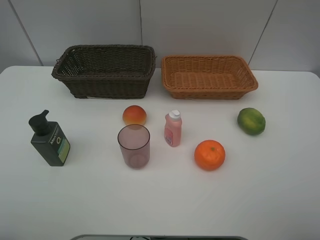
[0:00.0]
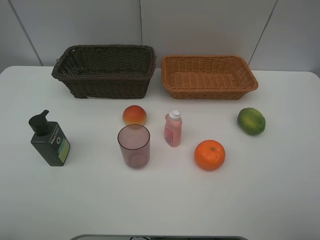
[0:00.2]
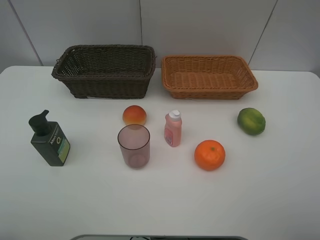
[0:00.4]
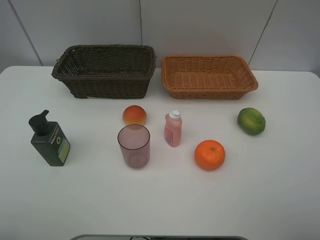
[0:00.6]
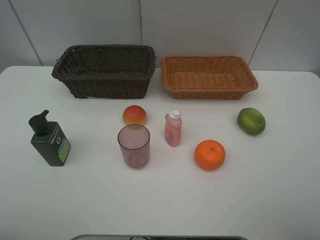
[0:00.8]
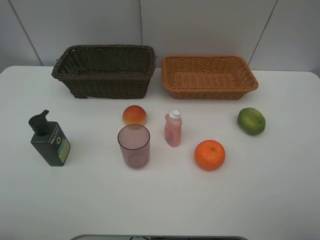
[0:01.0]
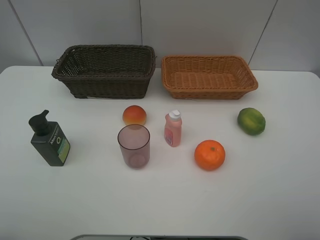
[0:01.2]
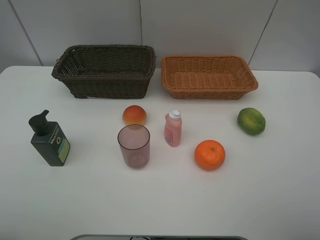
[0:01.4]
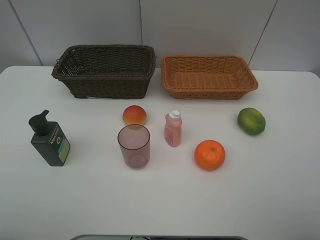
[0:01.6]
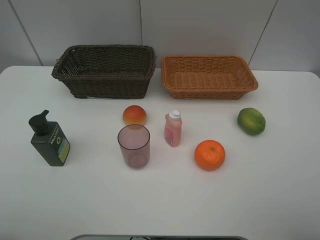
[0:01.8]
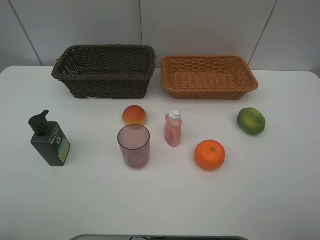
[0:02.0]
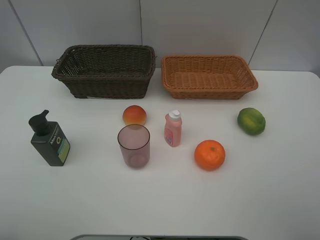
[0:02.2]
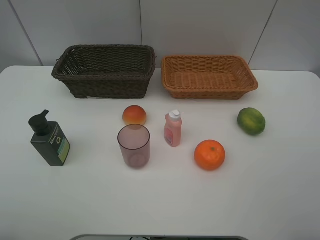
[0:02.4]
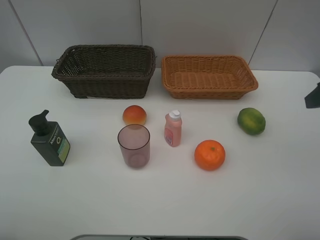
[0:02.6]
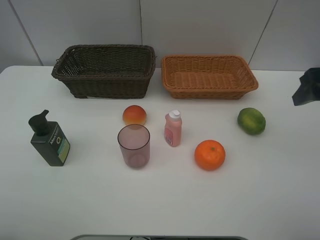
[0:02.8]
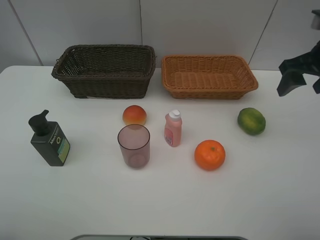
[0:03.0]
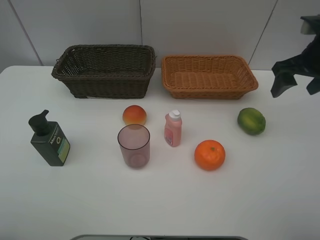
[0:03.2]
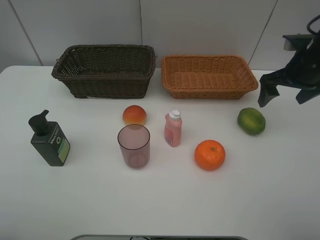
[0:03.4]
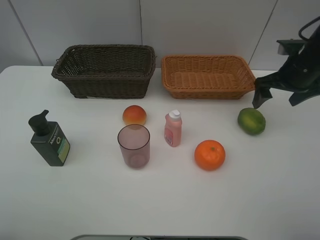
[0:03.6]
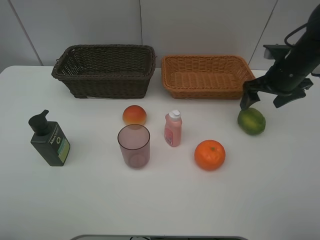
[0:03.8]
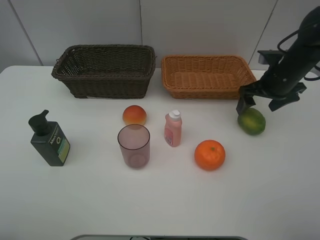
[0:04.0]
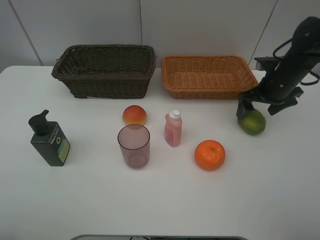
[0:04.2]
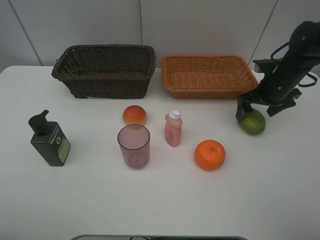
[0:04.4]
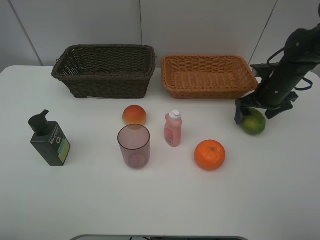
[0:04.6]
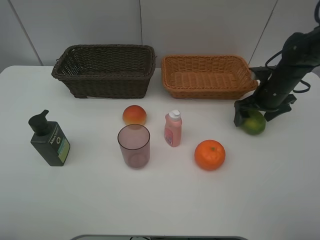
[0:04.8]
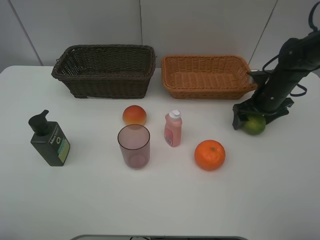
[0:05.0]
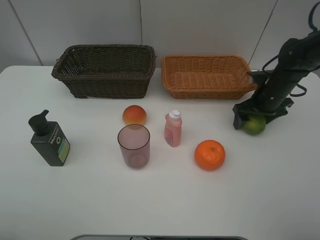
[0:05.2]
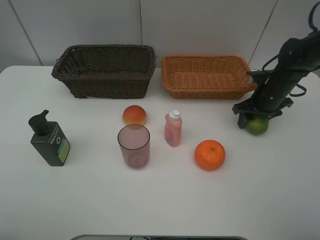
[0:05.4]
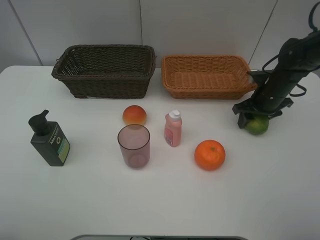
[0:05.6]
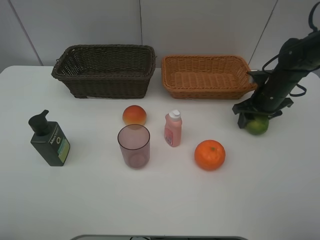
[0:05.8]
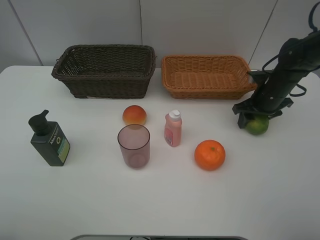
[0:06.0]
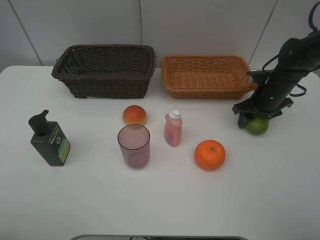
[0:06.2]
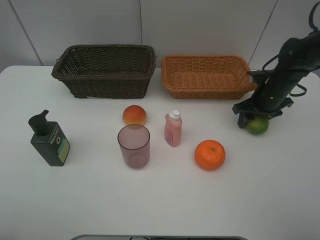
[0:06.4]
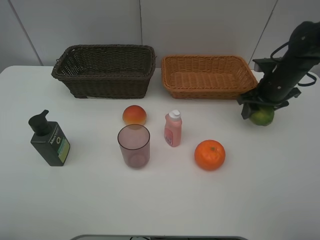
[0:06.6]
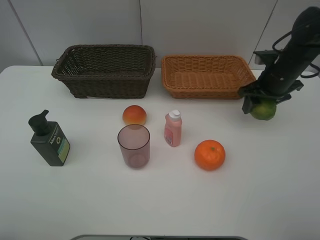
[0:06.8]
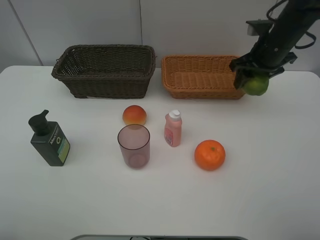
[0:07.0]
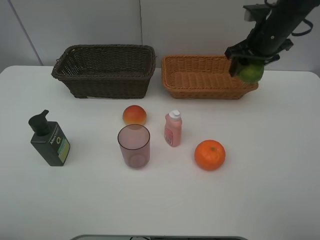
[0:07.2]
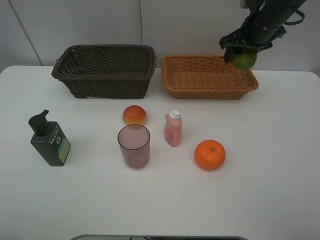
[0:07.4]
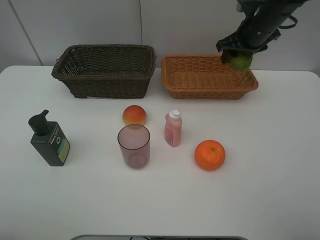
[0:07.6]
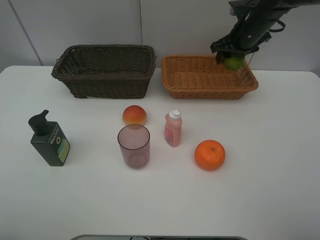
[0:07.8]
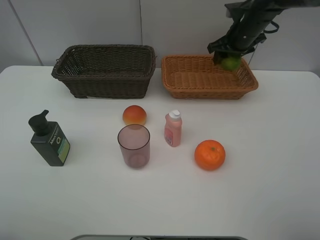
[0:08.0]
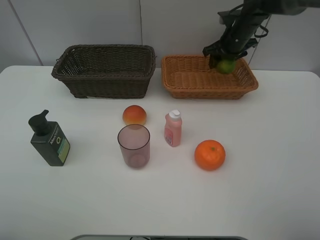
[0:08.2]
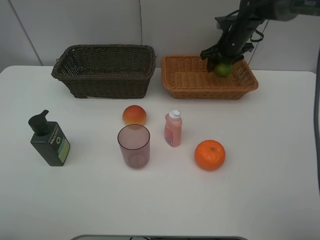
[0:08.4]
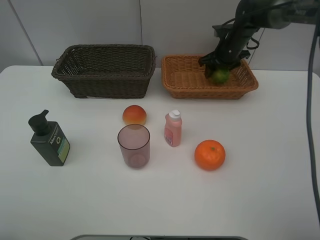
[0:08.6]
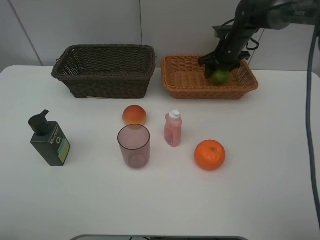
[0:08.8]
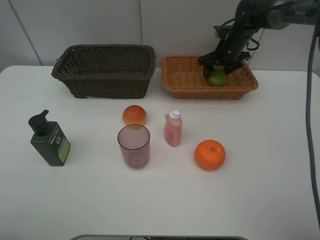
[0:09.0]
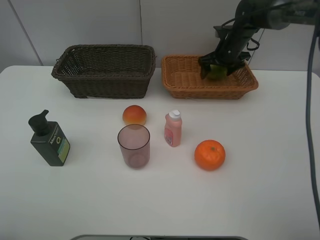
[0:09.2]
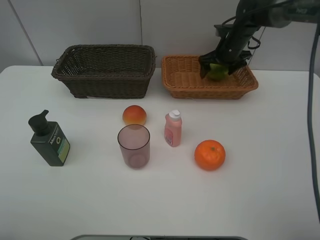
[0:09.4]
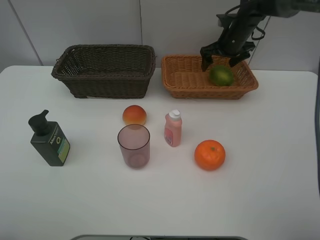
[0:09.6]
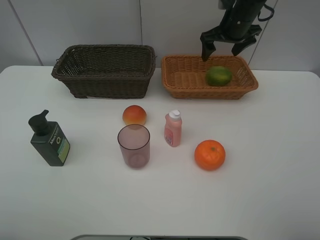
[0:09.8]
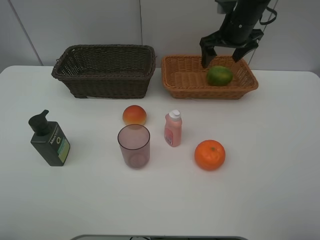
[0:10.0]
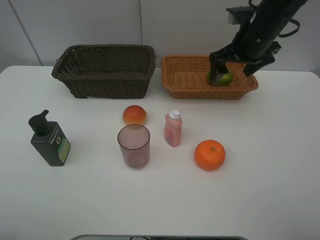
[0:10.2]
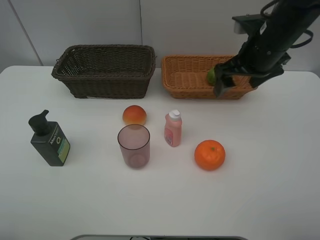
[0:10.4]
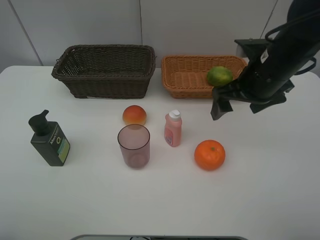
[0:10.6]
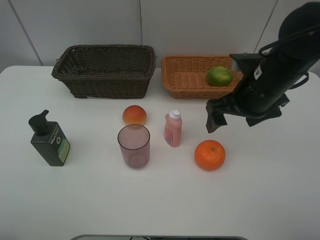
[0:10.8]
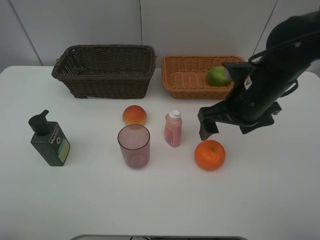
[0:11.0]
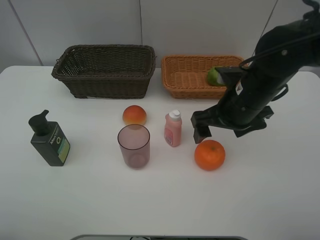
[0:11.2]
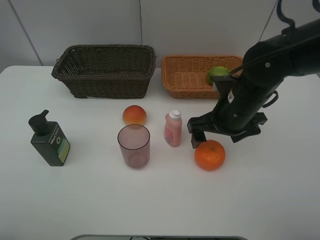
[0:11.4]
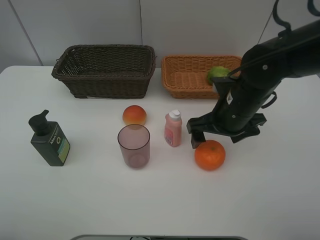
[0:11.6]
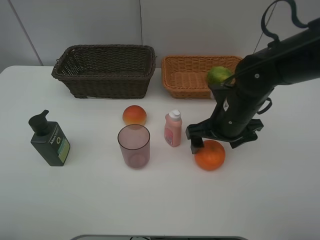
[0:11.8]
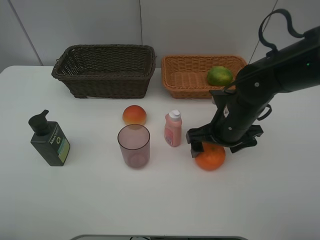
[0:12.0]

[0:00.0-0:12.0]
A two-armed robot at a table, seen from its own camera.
Task of the whole recording: place multiple objects separately in different baskets.
0:00.0 to 0:01.6: The two grippers keep their place.
0:01.6 to 0:03.0: The right gripper shifts roughly 30 cm forward.
0:03.0 to 0:04.4: The right gripper moves downward and forward, about 15 cm.
0:04.4 to 0:06.0: The right gripper closes.
0:06.0 to 0:07.6: The right gripper shifts some 15 cm upward, forward and to the left.
0:07.6 to 0:09.0: The right gripper travels downward and forward by approximately 10 cm.
0:09.0 to 0:10.4: The right gripper shifts approximately 20 cm backward and upward, and opens.
0:10.4 to 0:12.0: The right gripper heads downward and backward, covering approximately 10 cm.

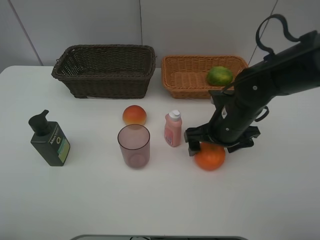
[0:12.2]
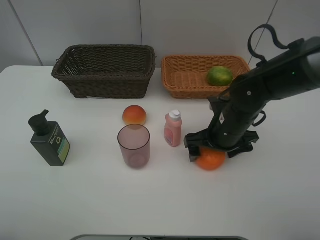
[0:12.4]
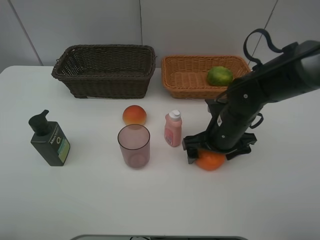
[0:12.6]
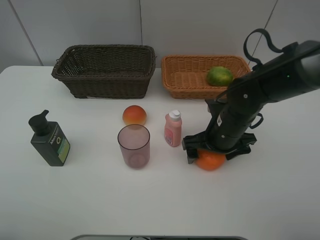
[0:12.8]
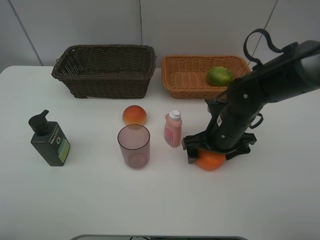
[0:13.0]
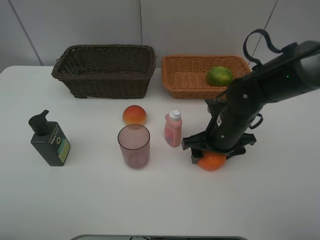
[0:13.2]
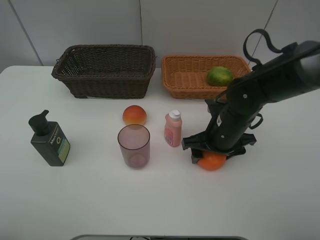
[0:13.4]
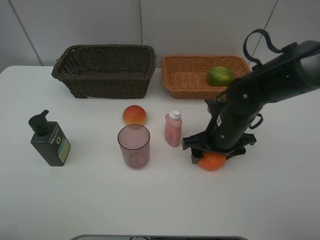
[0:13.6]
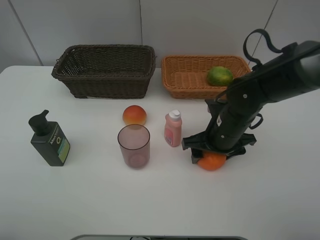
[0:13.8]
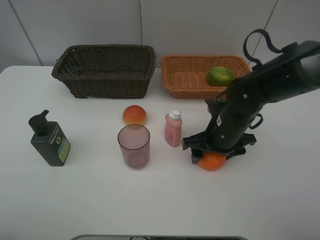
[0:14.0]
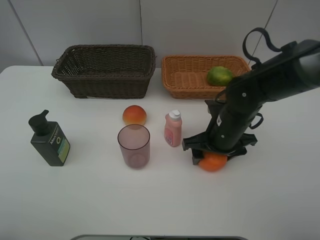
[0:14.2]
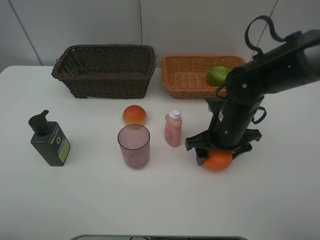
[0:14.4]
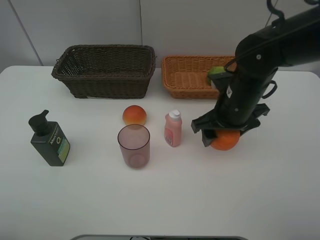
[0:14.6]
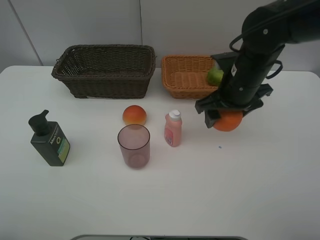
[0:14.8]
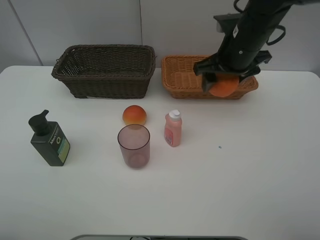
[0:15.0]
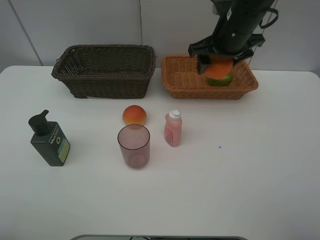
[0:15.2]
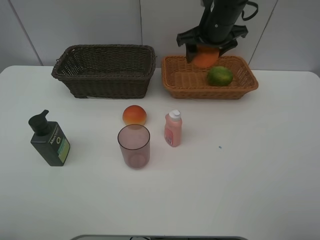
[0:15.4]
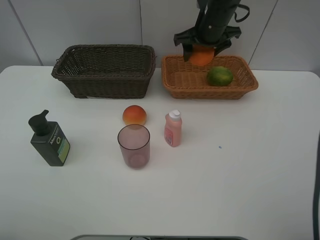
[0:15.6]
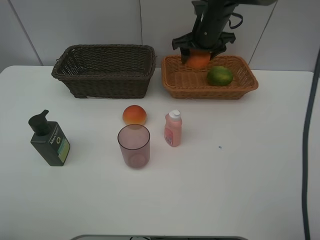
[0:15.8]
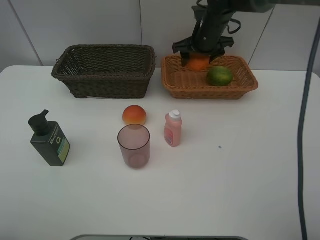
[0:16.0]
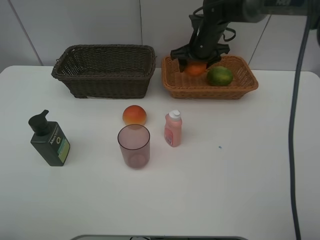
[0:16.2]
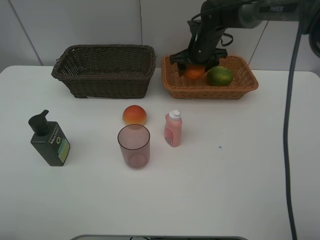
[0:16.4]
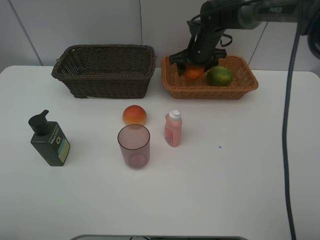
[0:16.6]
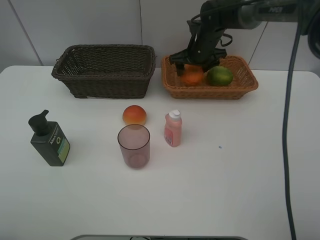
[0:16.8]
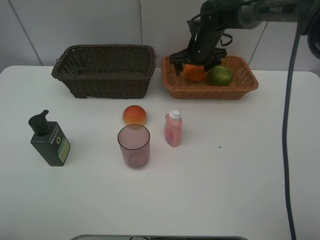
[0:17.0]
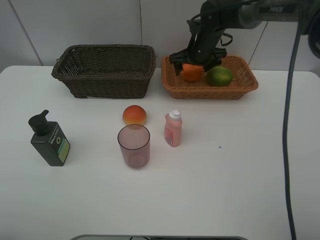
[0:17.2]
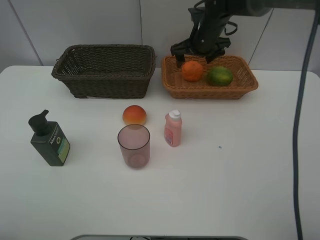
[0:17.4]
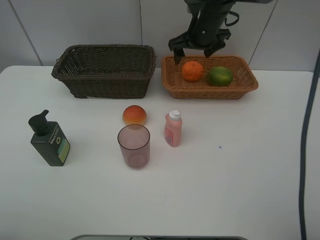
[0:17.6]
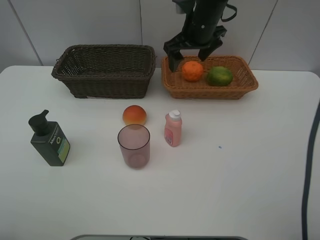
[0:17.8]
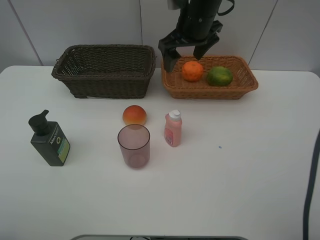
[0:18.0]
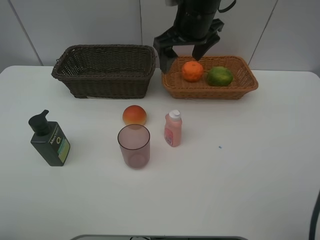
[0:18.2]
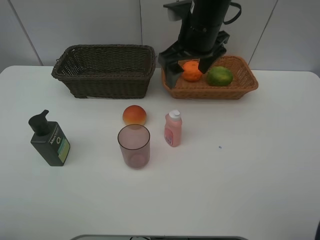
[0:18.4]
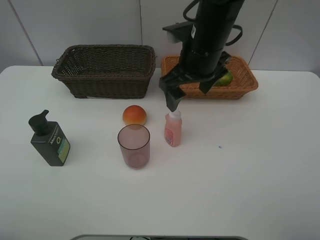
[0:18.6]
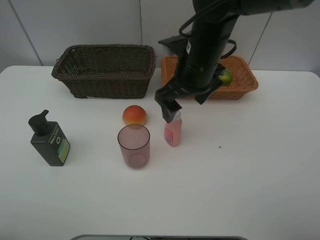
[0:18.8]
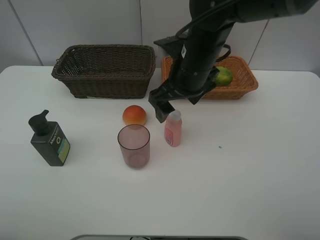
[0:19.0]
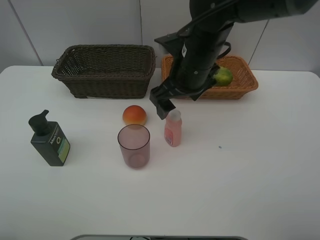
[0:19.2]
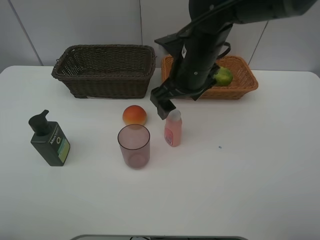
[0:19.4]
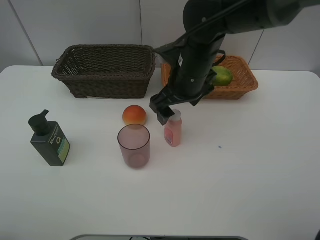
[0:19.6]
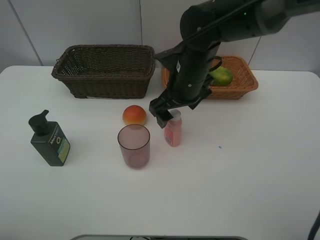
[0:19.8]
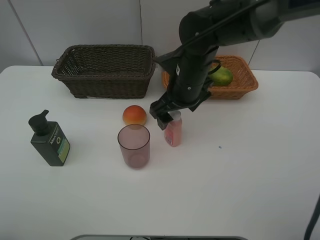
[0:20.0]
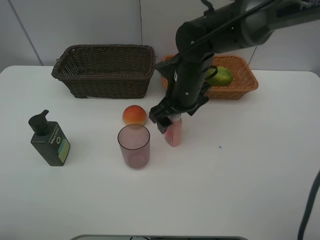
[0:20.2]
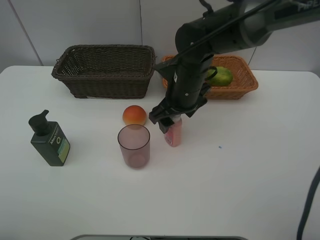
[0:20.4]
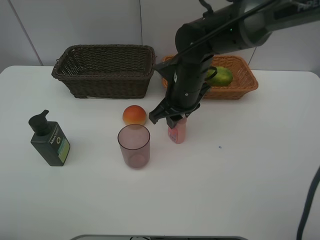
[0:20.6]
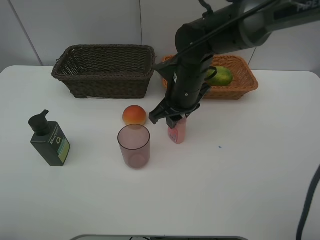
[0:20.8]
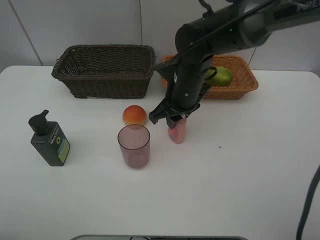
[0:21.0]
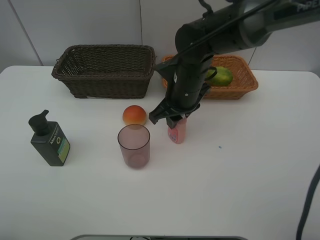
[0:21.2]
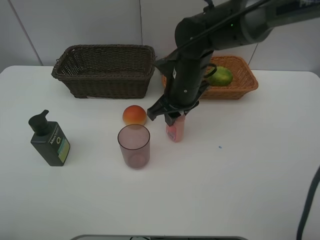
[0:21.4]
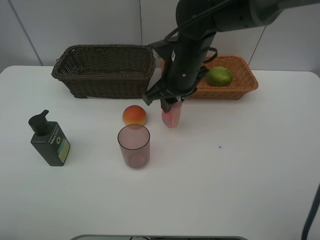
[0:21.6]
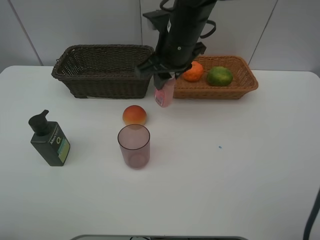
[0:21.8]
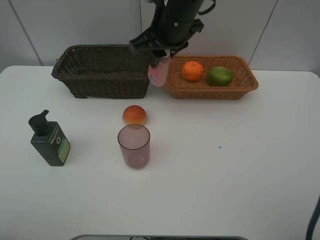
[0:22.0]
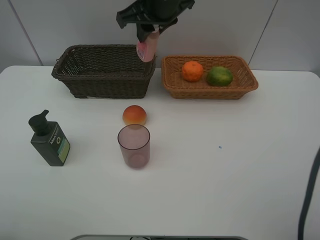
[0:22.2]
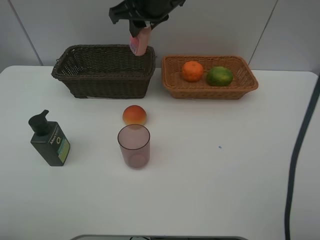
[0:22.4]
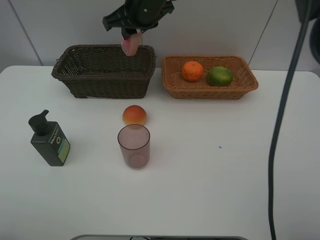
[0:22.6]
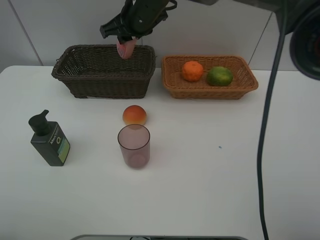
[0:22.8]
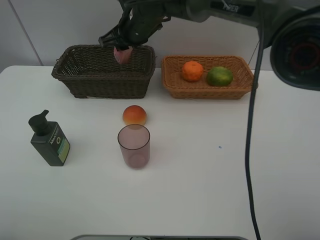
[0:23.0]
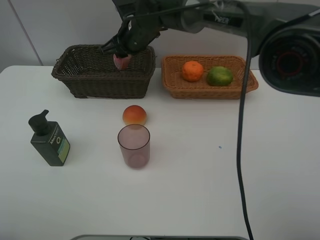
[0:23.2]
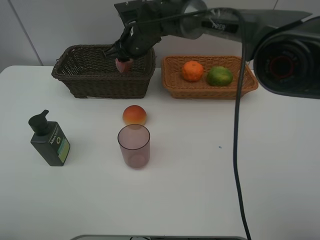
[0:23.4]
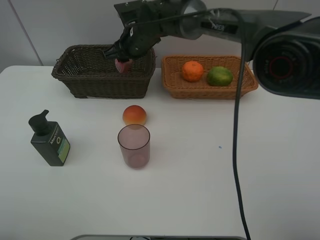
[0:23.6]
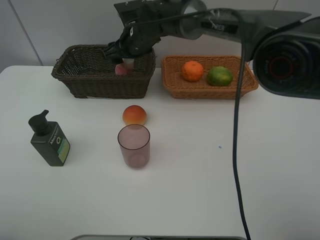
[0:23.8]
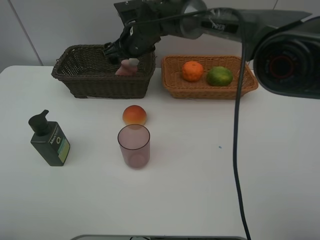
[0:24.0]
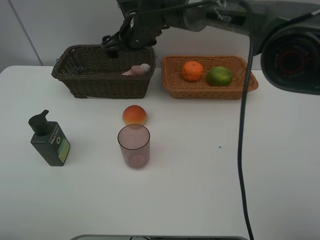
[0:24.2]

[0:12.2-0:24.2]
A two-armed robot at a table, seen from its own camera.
Task of the whole recording: place multiple objects separately in different baskets.
0:12.2 to 0:13.8: The right gripper closes.
0:13.8 to 0:15.2: The right gripper travels upward and forward by some 20 cm.
0:15.2 to 0:16.6: The right gripper shifts about 15 cm forward and downward.
0:16.6 to 0:18.2: The right gripper shifts approximately 15 cm backward and upward.
0:18.2 to 0:19.8: The right gripper shifts about 10 cm downward and backward.
0:19.8 to 0:21.2: The right gripper closes.
0:21.2 to 0:22.6: The right gripper heads upward, forward and to the left, covering approximately 15 cm.
0:22.6 to 0:24.2: The right gripper goes roughly 5 cm downward, and opens up.
